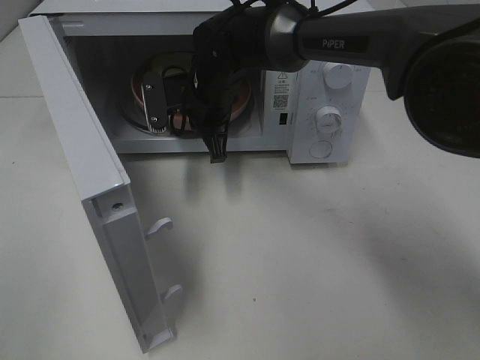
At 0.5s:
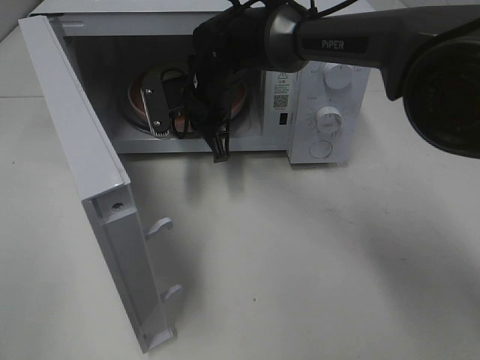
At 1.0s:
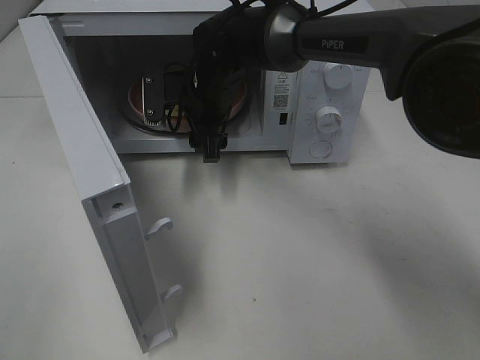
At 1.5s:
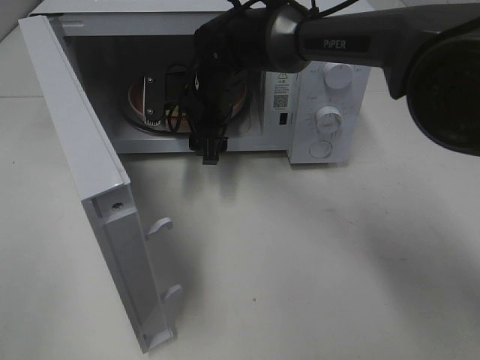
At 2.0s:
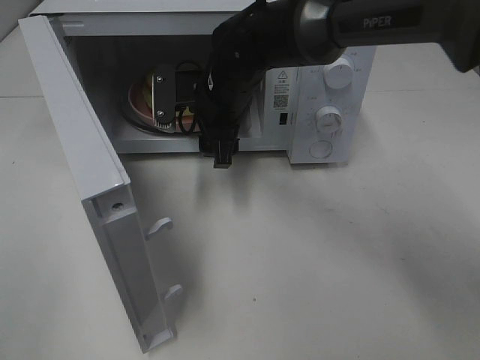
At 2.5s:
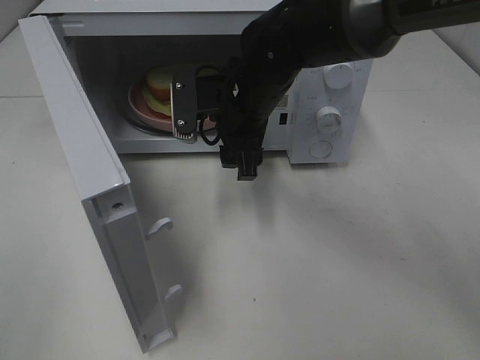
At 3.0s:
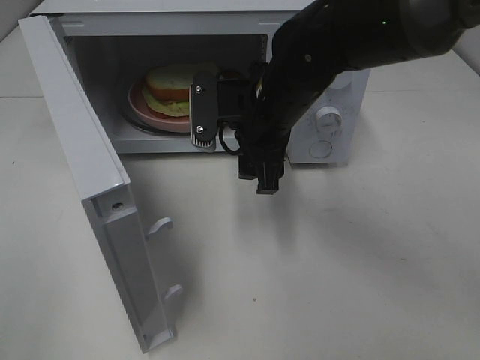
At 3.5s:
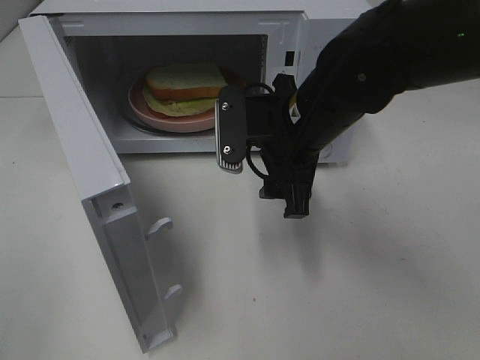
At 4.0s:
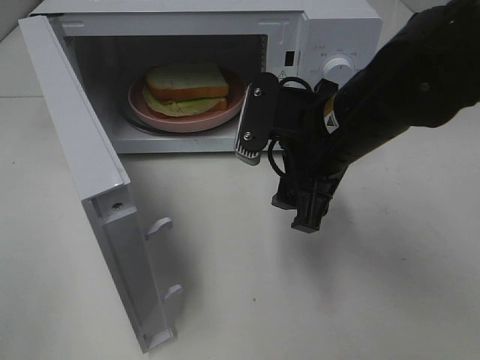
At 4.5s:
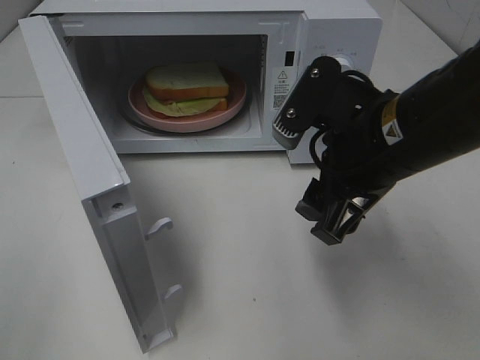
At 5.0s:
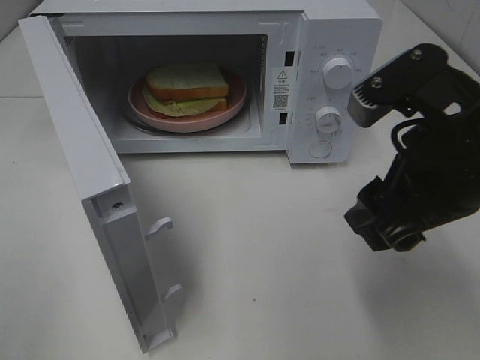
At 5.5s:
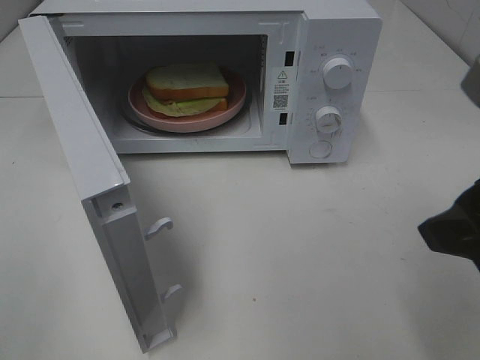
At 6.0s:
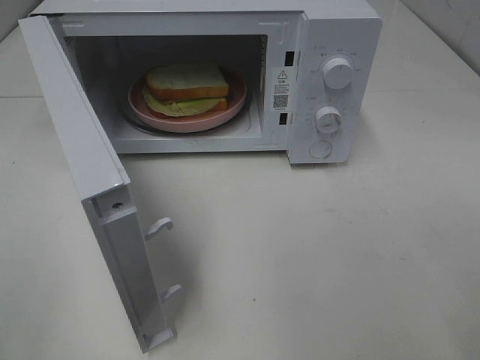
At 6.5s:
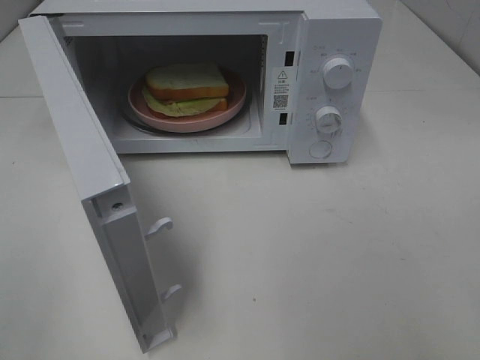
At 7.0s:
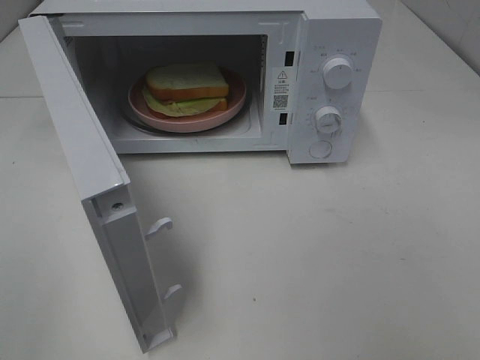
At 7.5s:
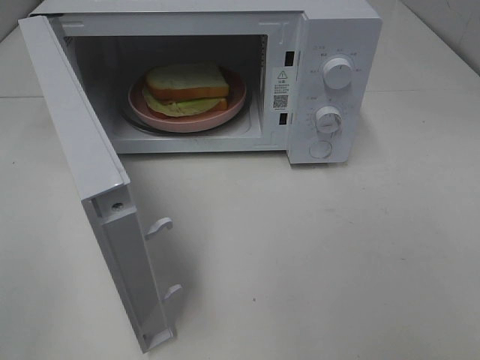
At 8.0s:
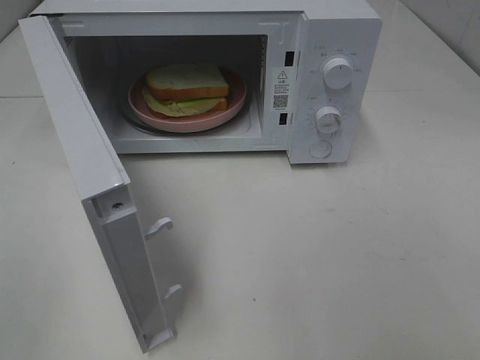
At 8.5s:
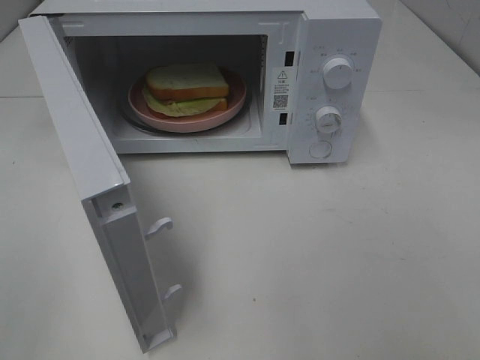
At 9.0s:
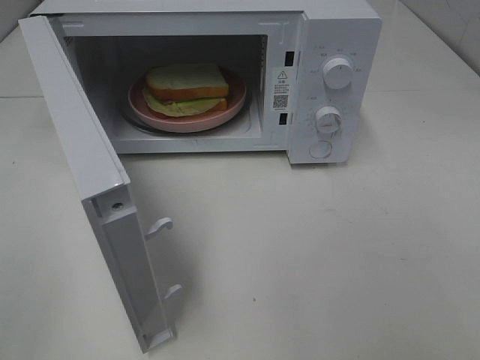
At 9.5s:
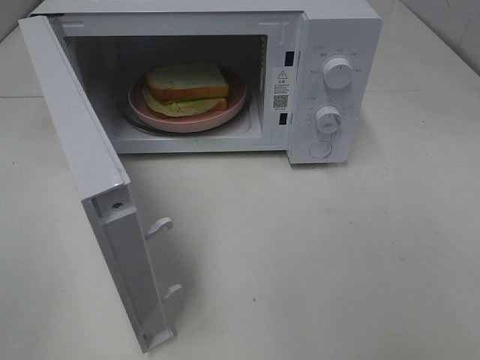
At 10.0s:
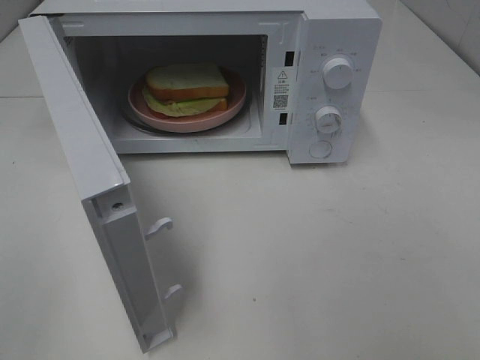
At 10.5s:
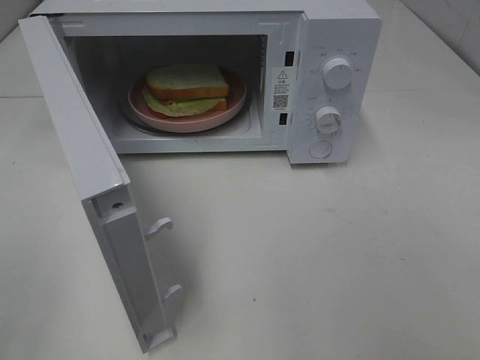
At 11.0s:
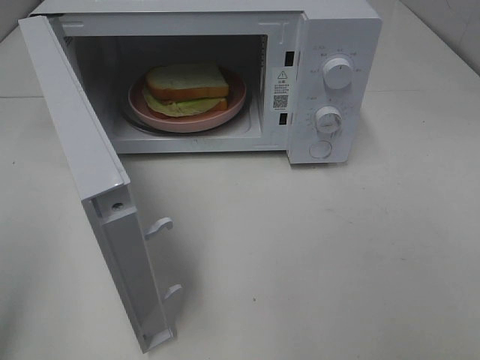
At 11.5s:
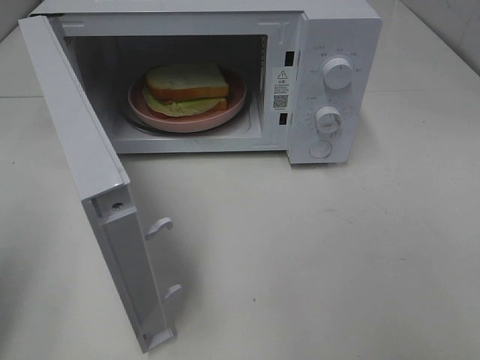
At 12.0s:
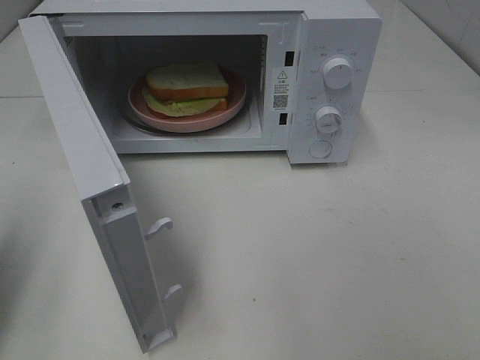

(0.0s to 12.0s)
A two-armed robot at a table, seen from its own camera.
Task of the whole recording: Heat Sandwich.
0.0s - 2.0s: The right gripper opens up.
2.0s - 4.0s: The right gripper travels backward and to the right by approximately 15 cm.
4.0s - 6.0s: The right gripper goes roughly 25 cm backward, to the right and upward.
8.0s - 10.0s: The two grippers keep their place.
10.0s - 12.0s: The left gripper travels forward by roughly 15 cm, and closes up.

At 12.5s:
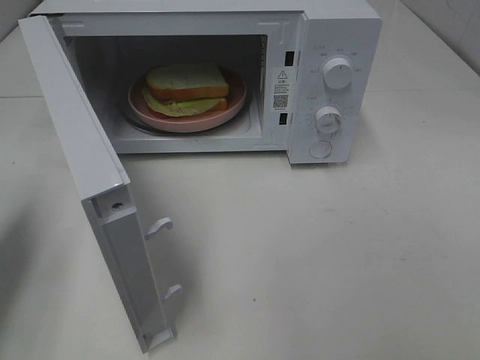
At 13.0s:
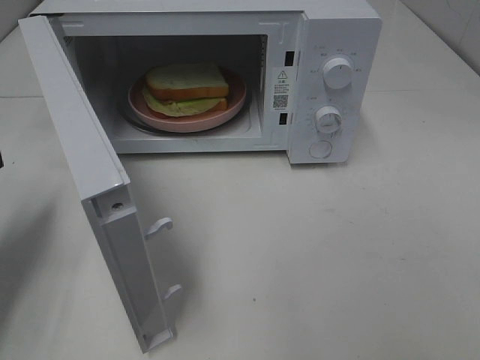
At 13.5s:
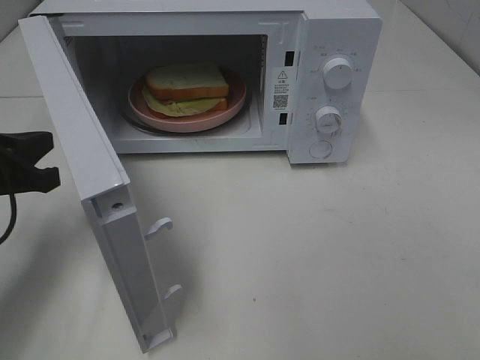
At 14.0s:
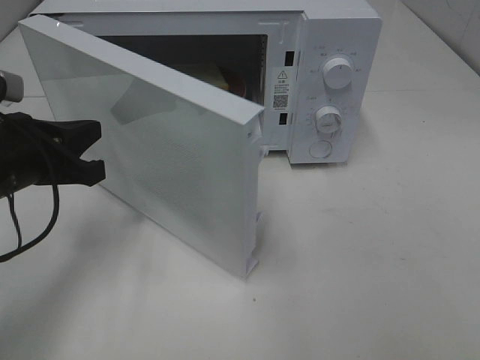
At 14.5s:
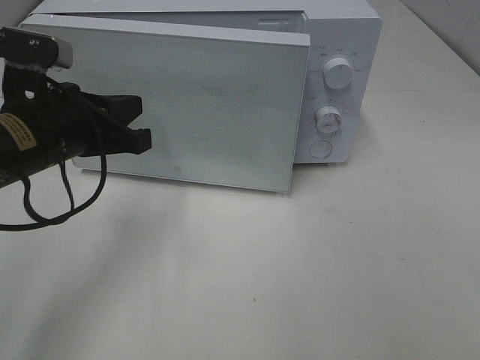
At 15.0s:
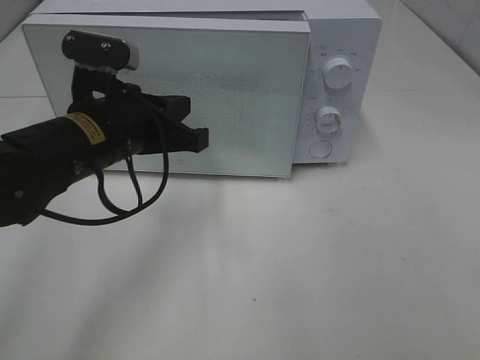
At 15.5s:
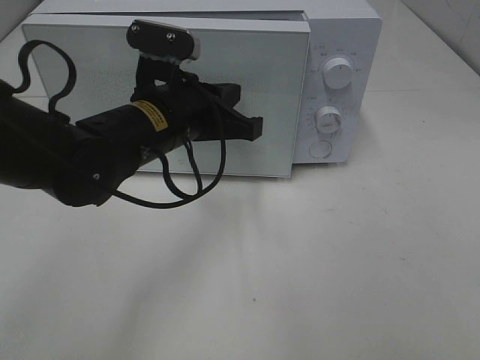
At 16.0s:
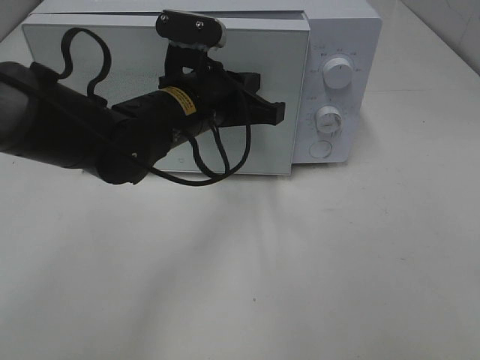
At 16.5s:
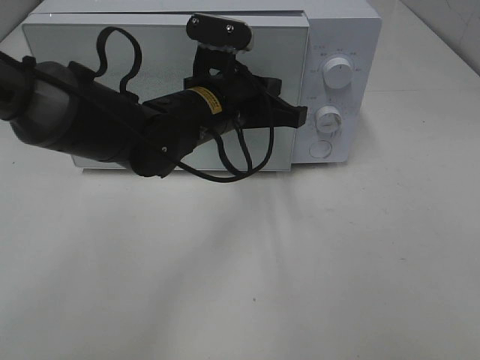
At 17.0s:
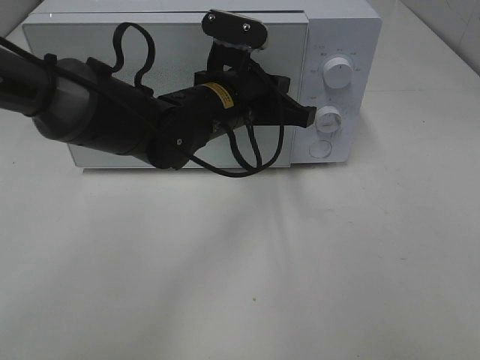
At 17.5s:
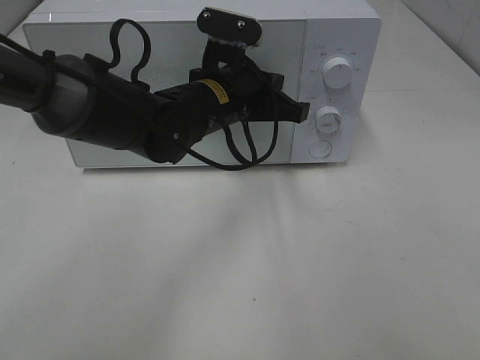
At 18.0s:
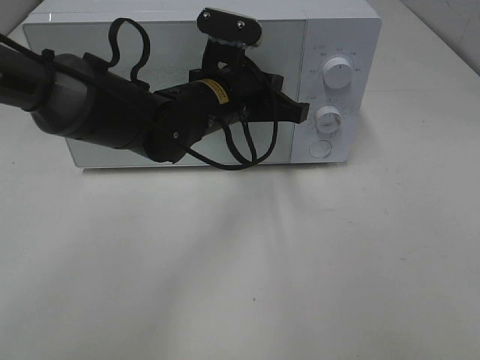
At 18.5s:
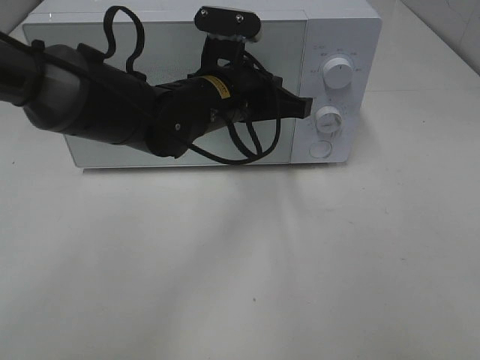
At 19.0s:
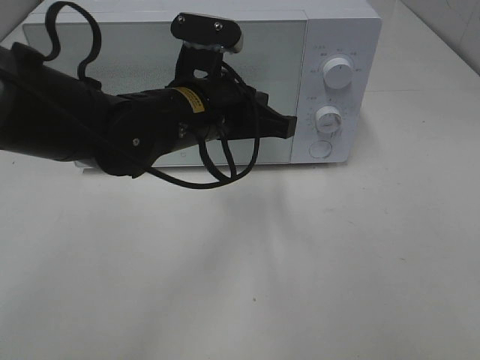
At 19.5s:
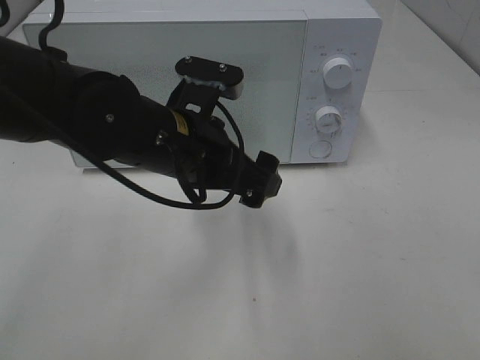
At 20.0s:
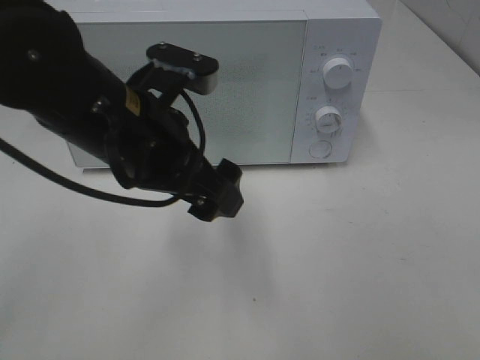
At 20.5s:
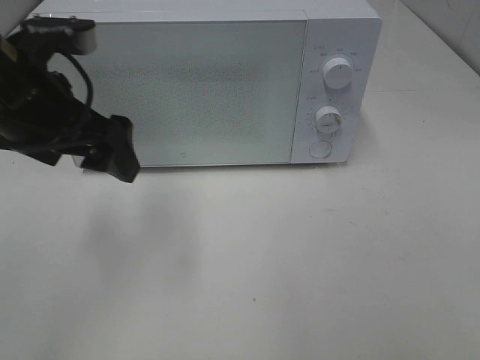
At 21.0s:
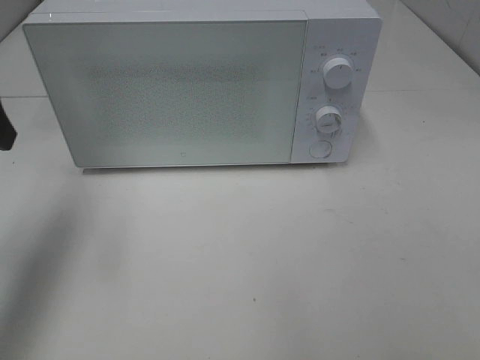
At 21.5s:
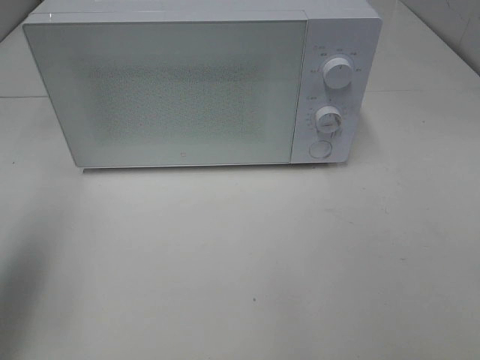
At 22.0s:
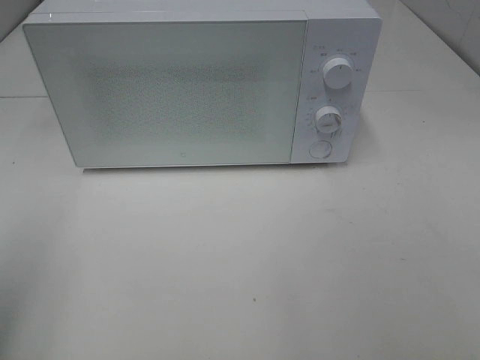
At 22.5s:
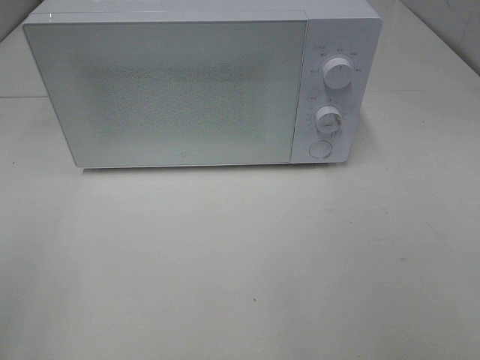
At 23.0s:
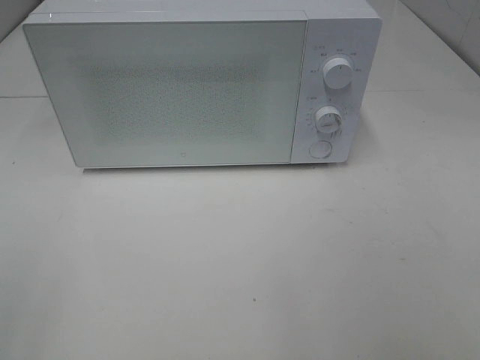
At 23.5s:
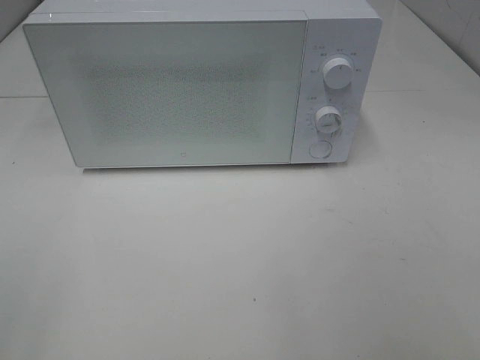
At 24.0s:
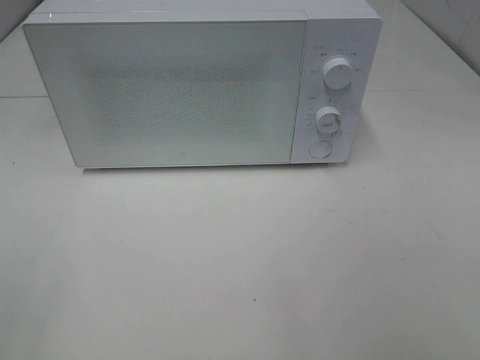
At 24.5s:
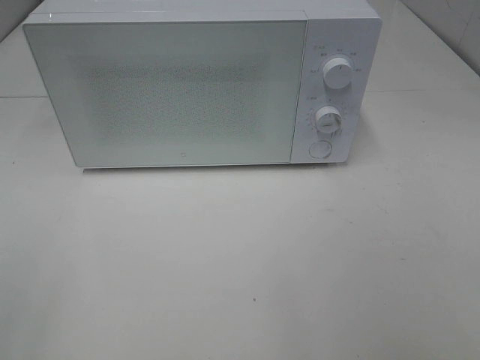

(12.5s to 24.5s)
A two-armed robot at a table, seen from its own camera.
Task of the whole recording: Heat Sandwich.
Step, 12.5s - 18.5s: Left hand: close the microwave door.
12.5s - 14.5s: The left gripper goes some 15 cm to the right.
14.5s - 16.5s: The left gripper is displaced to the right and forward by approximately 15 cm.
16.5s - 18.5s: There are only small adjustments of the grippers.
18.5s - 20.5s: The left gripper is displaced to the left, upward and backward by about 20 cm, and opens its fingers.
20.5s - 22.5s: The left gripper heads backward and to the left, covering about 25 cm.

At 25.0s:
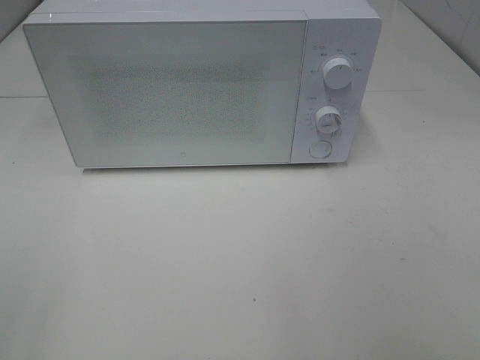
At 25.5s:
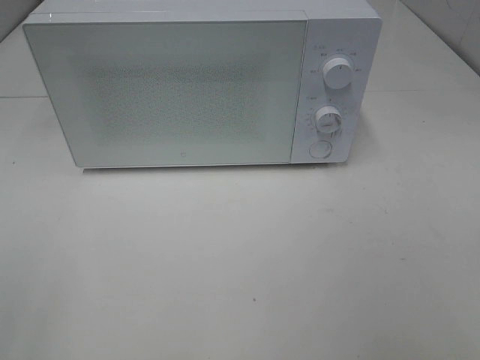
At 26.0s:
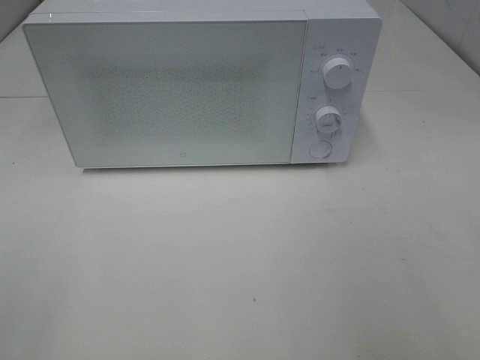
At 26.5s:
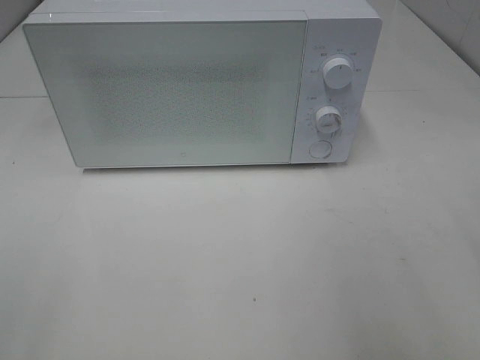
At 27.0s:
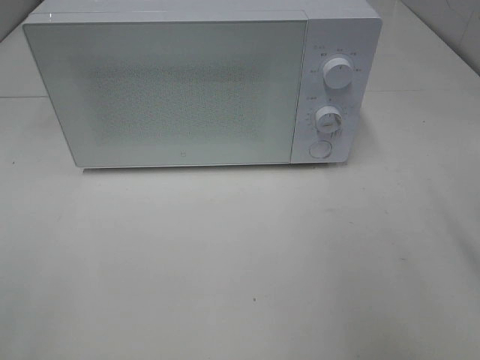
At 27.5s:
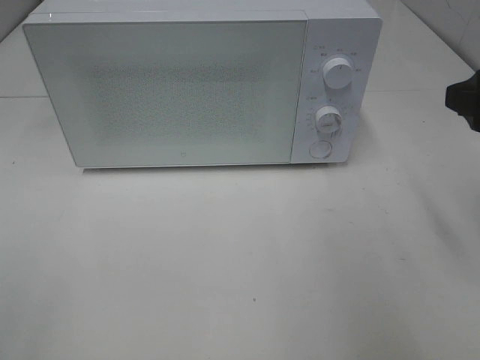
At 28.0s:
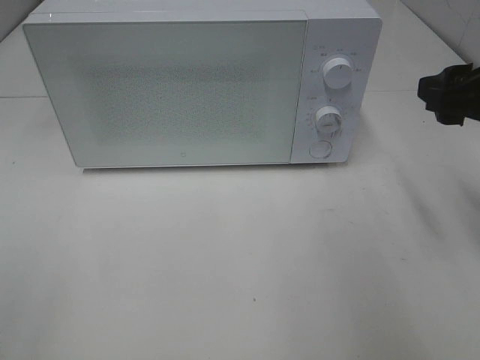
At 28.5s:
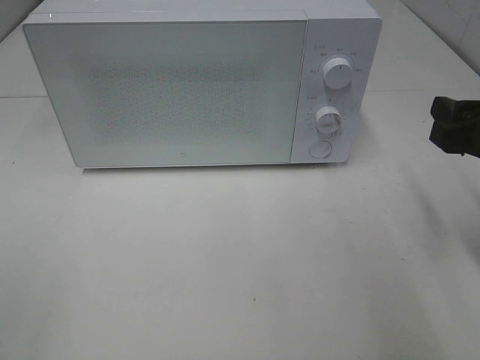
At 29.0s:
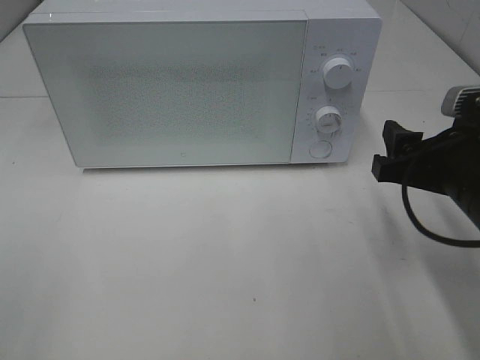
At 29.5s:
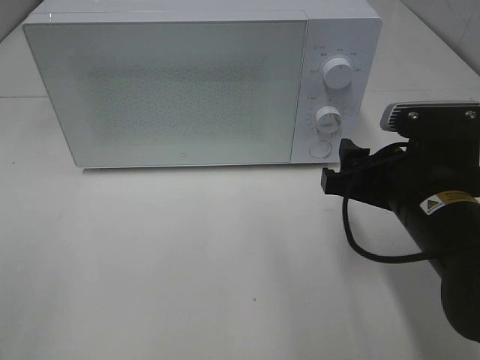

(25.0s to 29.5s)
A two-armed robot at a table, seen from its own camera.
Task of the whole recording: Heat Sandwich.
27.0s - 29.5s: The right gripper travels downward and to the left by approximately 15 cm.
